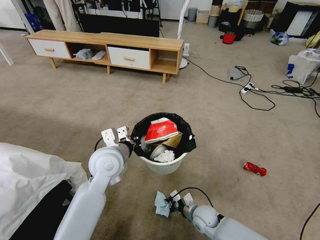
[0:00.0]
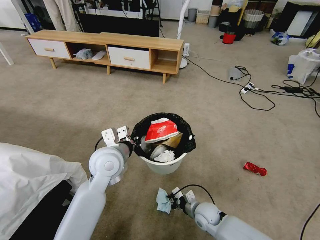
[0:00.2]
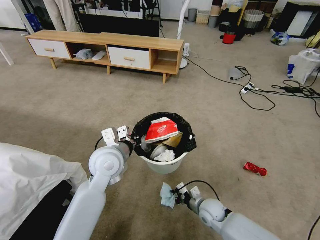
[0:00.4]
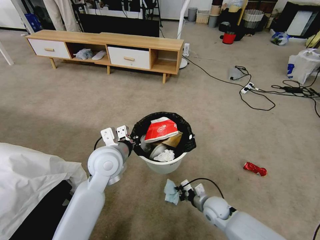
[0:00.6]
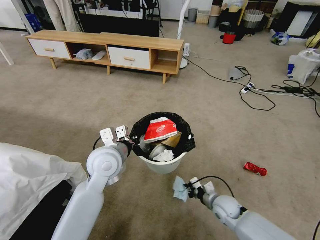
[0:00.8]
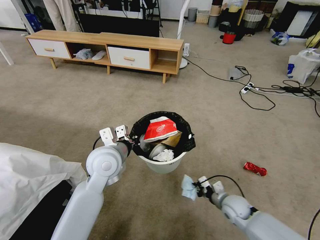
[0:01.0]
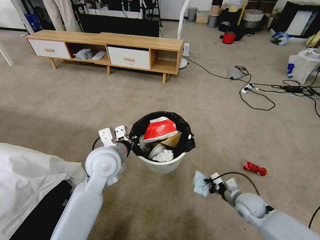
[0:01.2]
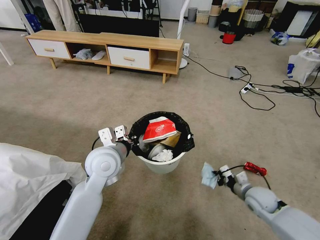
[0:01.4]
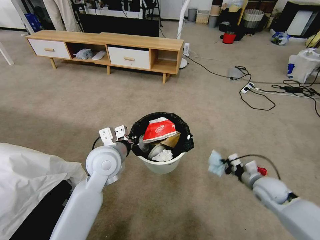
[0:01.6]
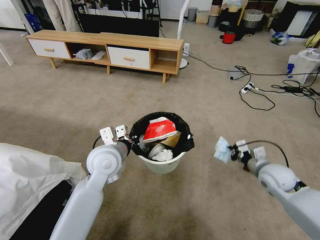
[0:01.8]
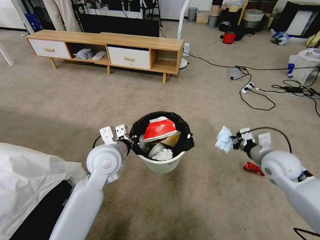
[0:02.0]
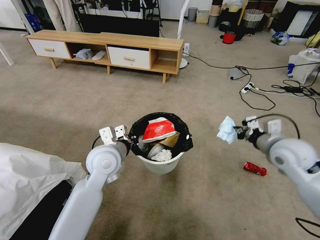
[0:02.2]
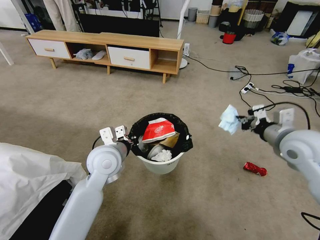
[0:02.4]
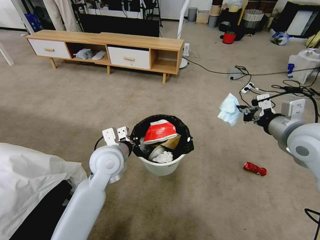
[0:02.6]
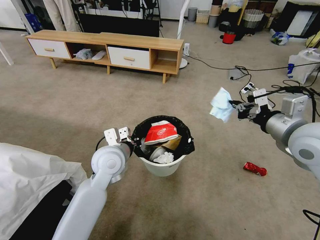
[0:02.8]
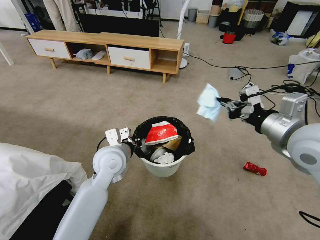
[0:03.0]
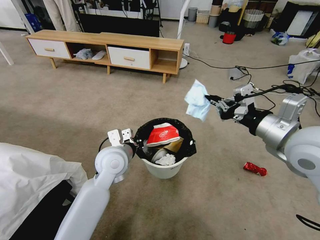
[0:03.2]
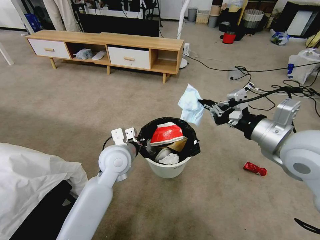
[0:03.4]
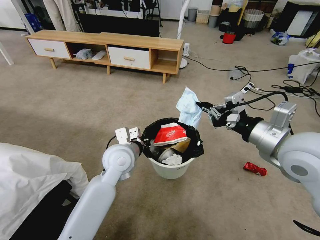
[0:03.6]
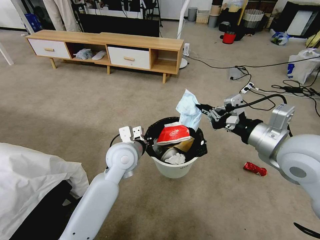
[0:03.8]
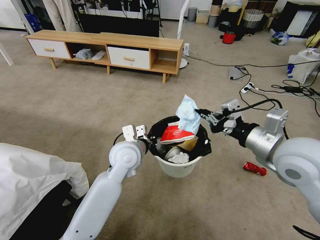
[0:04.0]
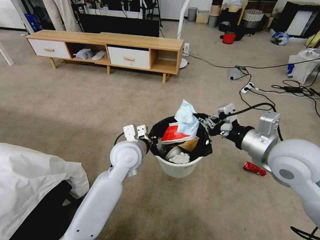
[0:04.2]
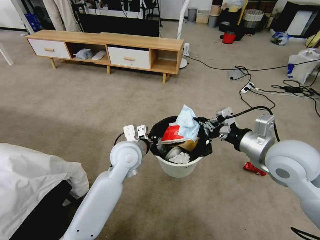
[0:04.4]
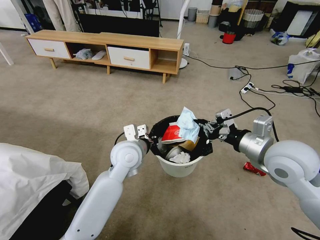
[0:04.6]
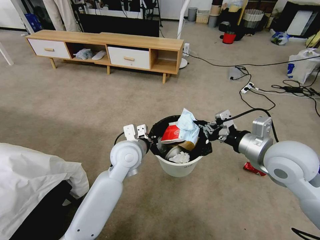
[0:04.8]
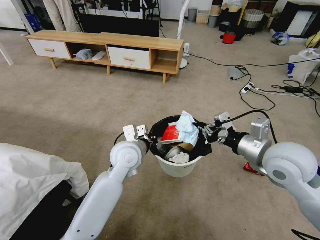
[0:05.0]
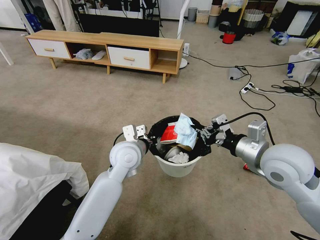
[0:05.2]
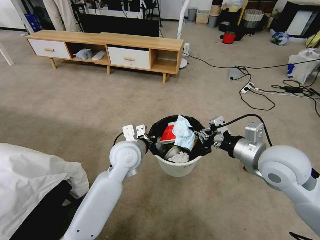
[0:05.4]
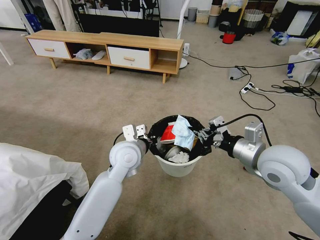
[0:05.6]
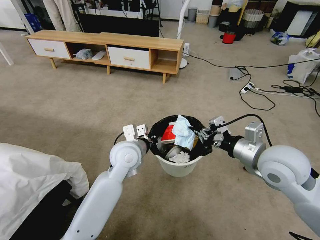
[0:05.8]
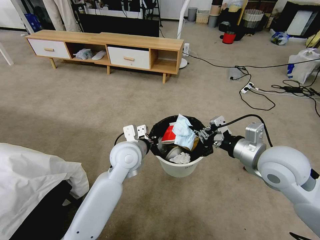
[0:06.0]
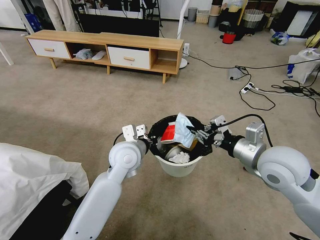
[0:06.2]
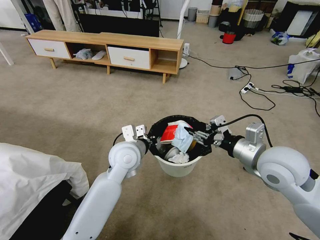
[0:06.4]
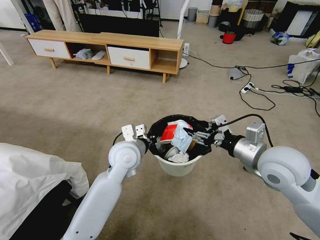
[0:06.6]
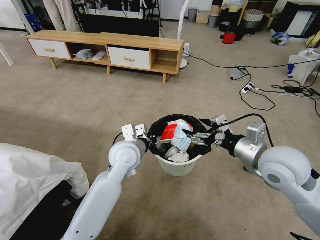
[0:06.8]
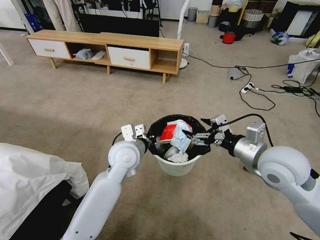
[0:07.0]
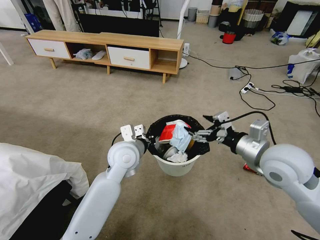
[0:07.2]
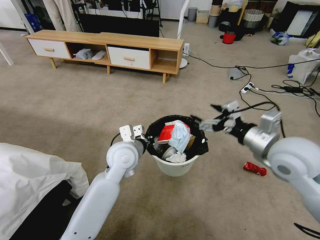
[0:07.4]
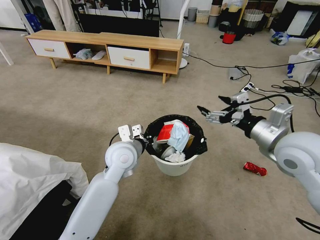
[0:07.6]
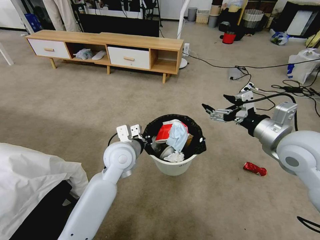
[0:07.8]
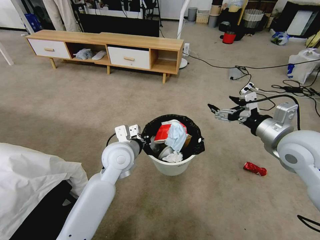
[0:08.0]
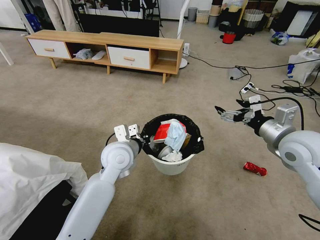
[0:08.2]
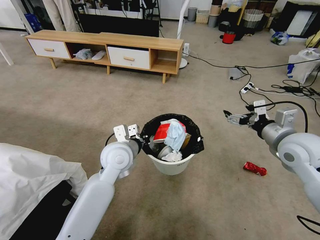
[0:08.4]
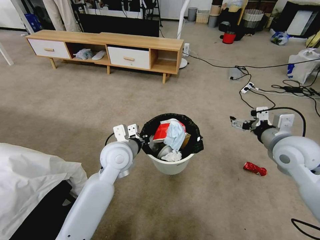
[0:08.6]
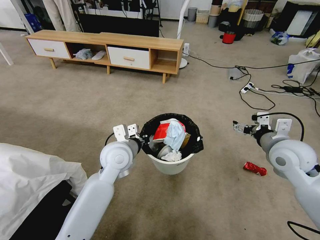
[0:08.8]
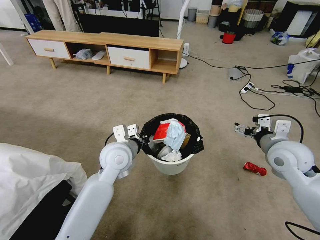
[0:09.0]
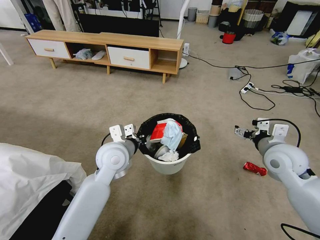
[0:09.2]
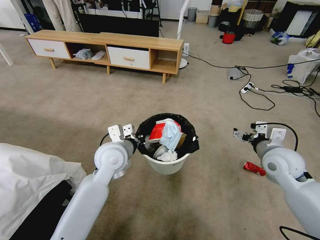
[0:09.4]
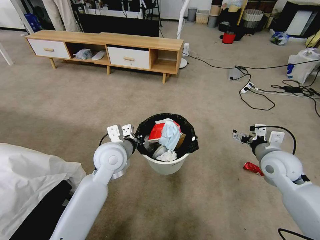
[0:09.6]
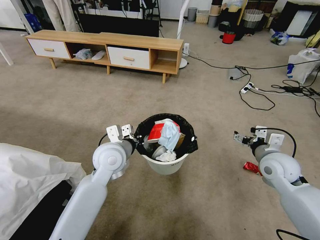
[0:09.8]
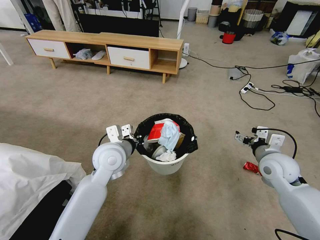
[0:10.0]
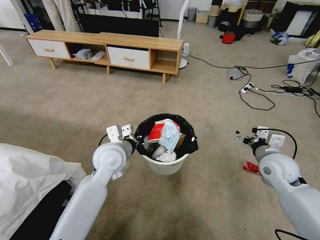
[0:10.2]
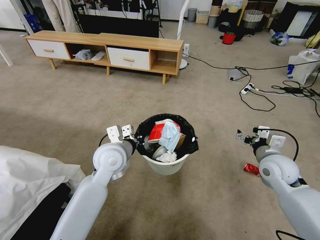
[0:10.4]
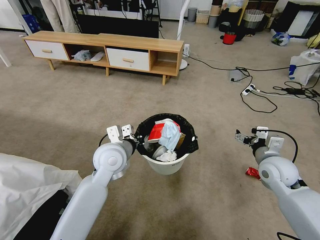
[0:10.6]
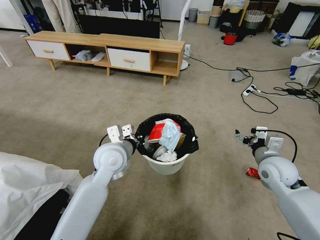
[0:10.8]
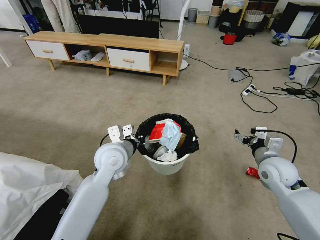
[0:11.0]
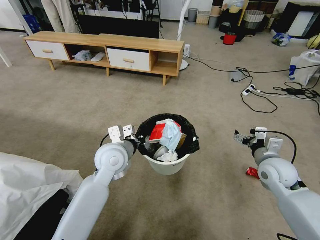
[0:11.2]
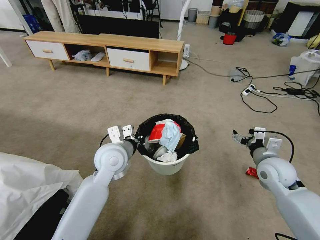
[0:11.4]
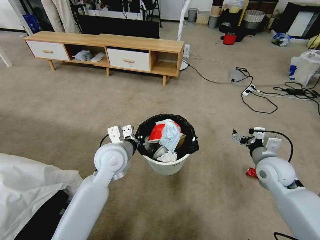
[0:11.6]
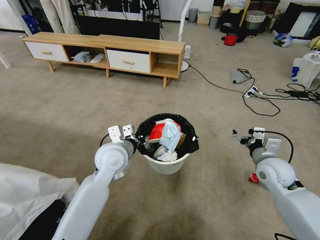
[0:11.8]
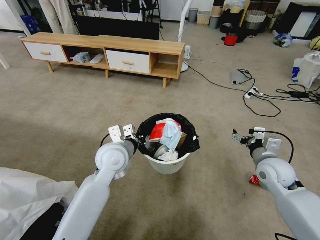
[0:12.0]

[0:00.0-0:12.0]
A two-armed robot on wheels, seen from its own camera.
Task of the whole recording: Pick up the trash bin and place the garbage on the floor into it.
0:00.0 to 0:01.6: The right gripper heads to the right and upward, covering about 25 cm.
0:01.6 to 0:03.0: The right gripper shifts approximately 30 cm upward.
0:03.0 to 0:04.4: The right gripper is displaced downward by some 5 cm.
0:04.4 to 0:06.0: There are only small adjustments of the grippers.
0:06.0 to 0:07.6: The right gripper shifts by about 5 cm, and opens its fingers.
0:07.6 to 0:09.0: The right gripper heads downward, covering approximately 10 cm.
0:09.0 to 0:10.4: The right gripper travels downward by about 5 cm.

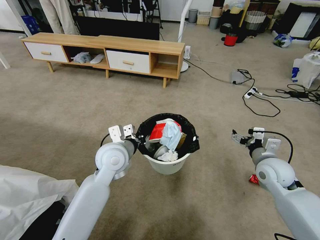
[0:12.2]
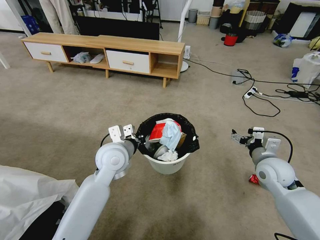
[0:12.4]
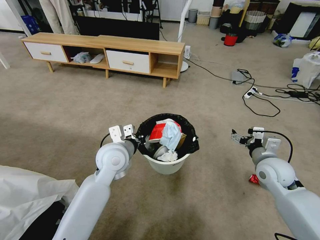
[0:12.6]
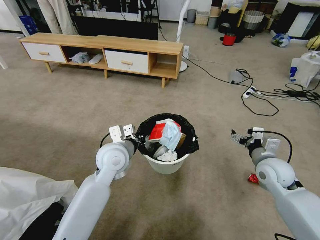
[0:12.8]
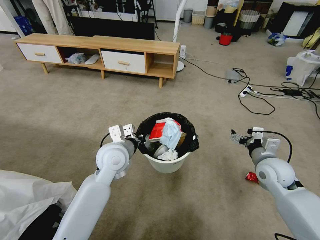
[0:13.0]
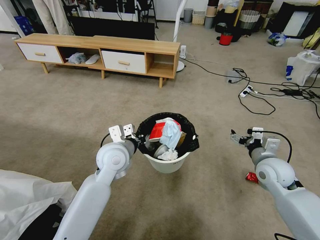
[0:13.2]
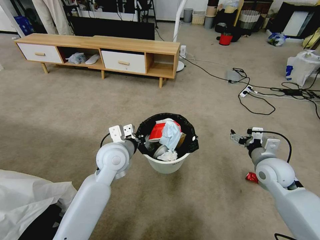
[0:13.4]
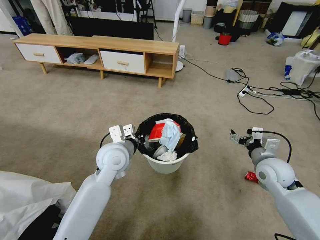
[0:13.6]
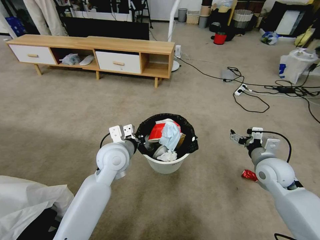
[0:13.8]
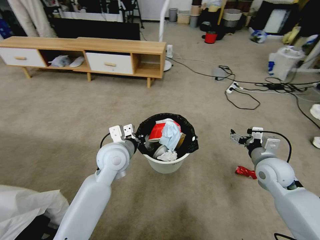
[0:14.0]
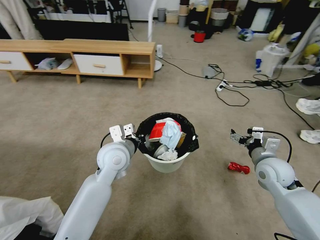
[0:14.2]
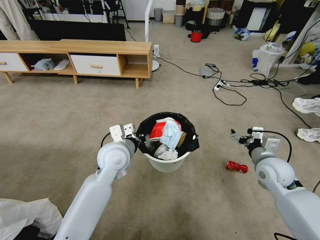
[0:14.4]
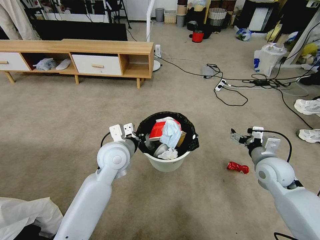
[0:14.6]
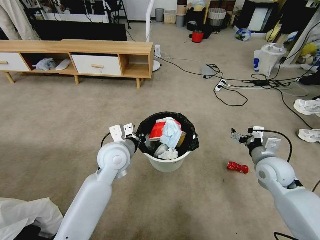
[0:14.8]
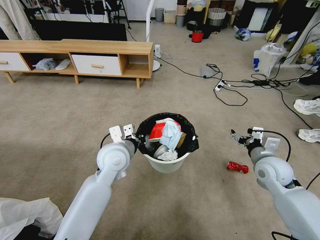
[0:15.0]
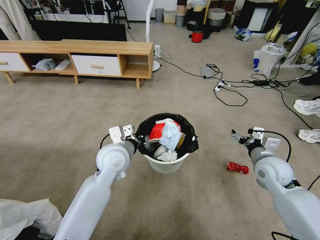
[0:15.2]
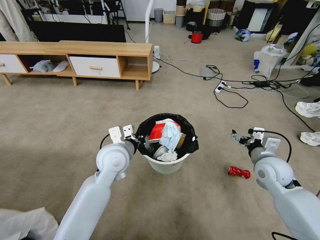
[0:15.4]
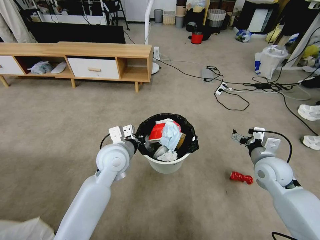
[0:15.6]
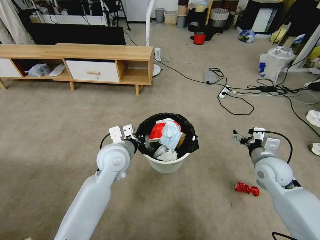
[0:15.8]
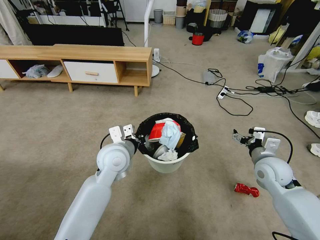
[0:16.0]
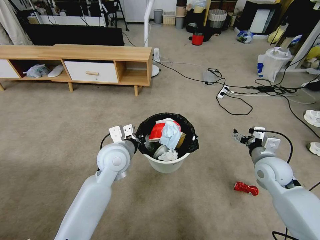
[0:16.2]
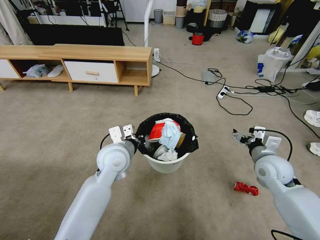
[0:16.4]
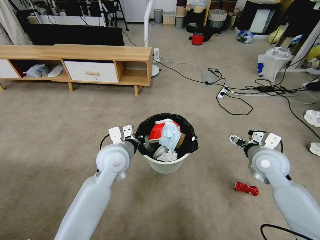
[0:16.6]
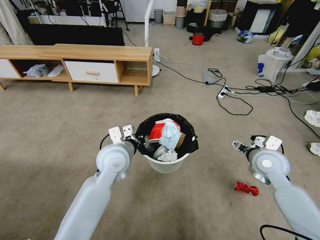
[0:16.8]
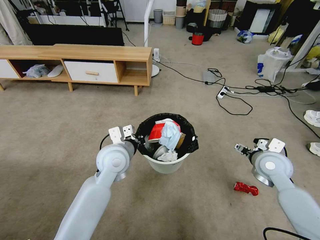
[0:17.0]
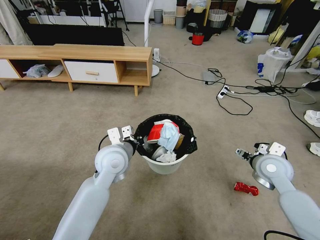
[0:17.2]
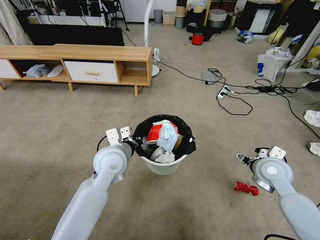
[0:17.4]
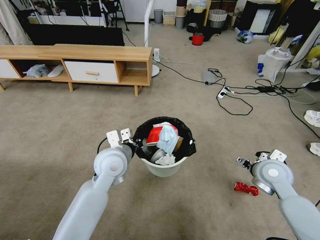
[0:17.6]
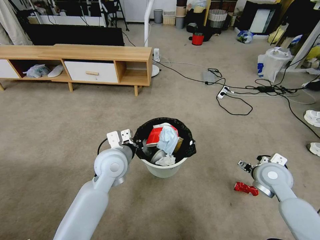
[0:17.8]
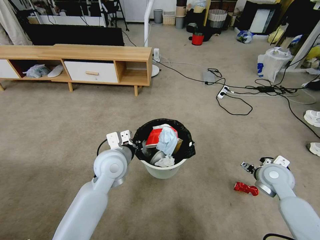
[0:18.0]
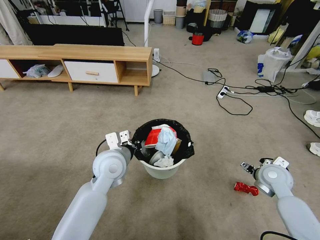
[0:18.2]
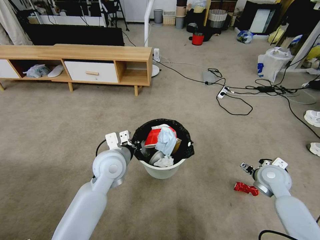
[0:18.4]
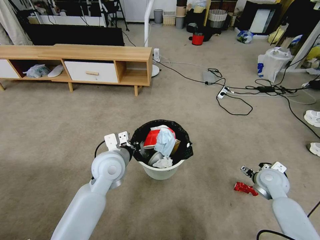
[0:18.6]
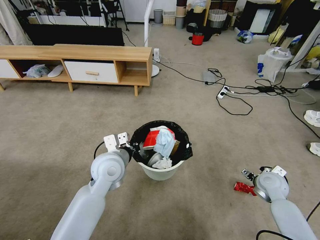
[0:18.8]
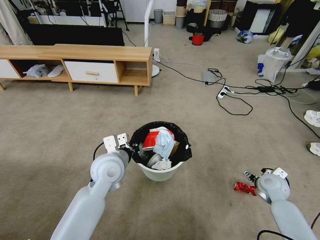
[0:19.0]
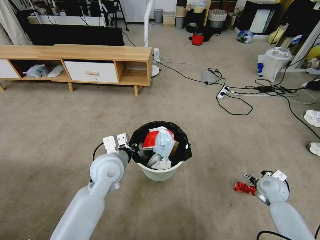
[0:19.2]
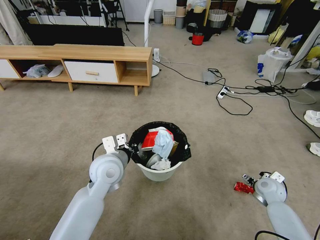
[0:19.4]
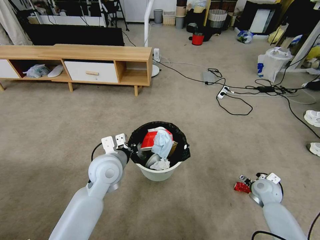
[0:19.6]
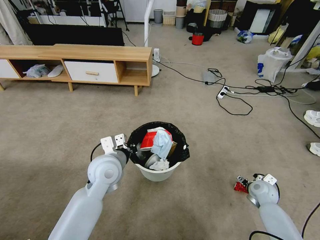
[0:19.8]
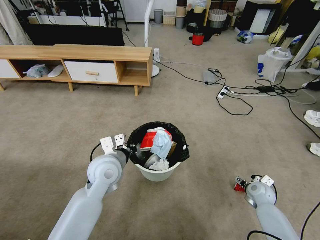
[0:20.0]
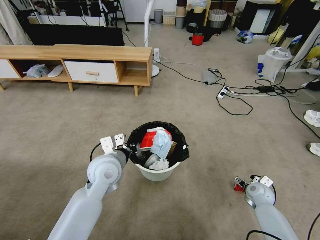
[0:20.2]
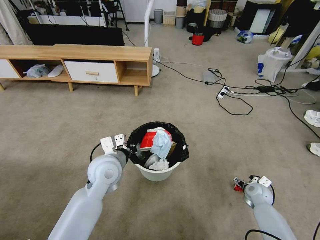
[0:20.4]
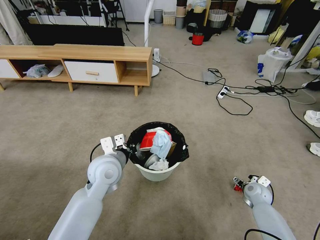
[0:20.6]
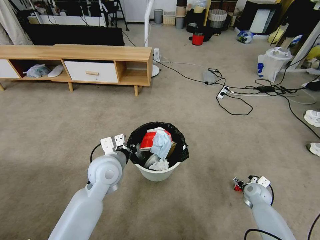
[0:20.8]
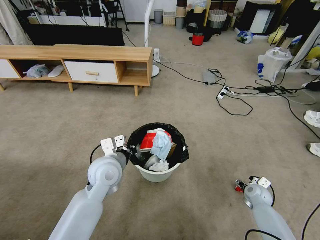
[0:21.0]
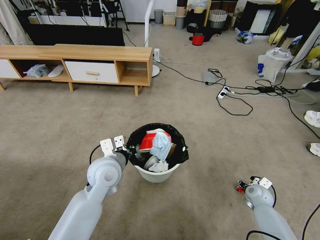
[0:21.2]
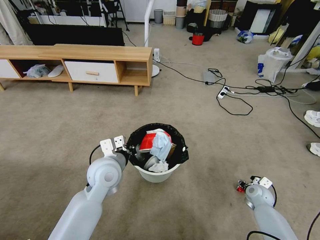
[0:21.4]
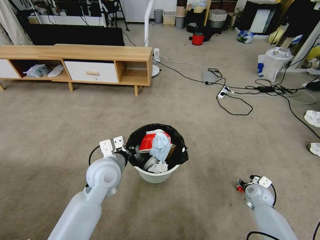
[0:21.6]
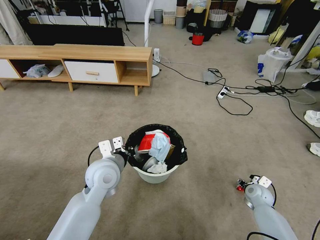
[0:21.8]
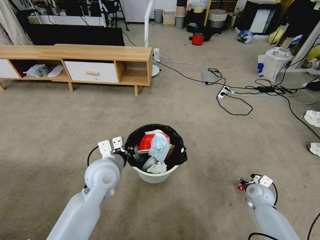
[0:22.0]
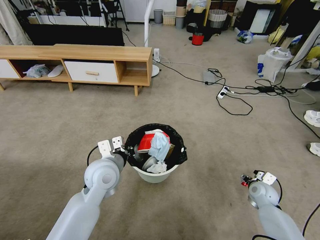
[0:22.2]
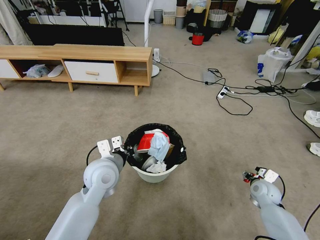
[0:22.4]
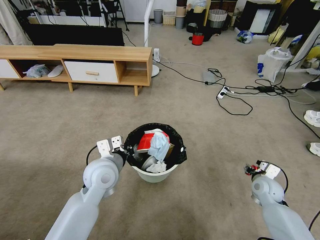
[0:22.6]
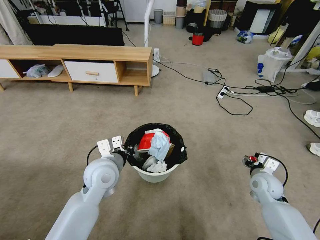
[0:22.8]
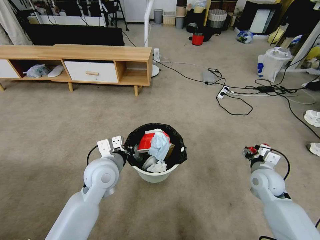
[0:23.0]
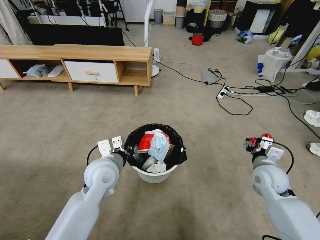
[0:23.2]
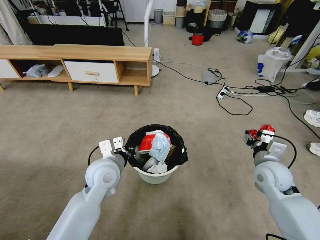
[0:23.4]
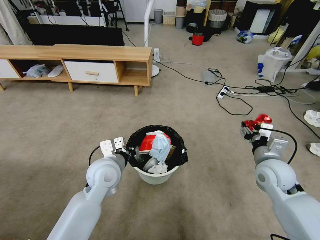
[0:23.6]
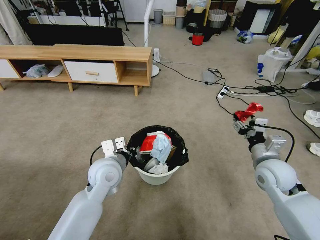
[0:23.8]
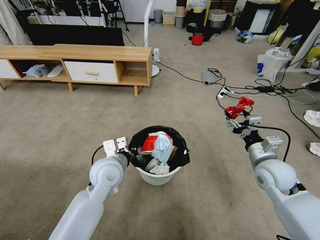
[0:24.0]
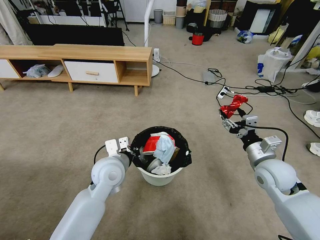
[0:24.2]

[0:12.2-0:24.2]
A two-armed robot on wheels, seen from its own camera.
Task of the whole recording: Pick up the trash bin and place the garbage on the floor into it.
0:16.6 to 0:18.2: The right gripper is displaced downward by some 5 cm.
0:18.2 to 0:19.8: The right gripper moves downward, roughly 15 cm.
0:19.8 to 0:21.2: The grippers make only small movements.
0:21.2 to 0:22.6: The right gripper moves upward, about 10 cm.
0:22.6 to 0:24.2: The right gripper travels upward and to the left by about 15 cm.
